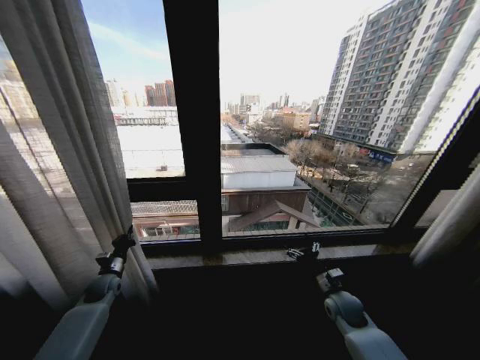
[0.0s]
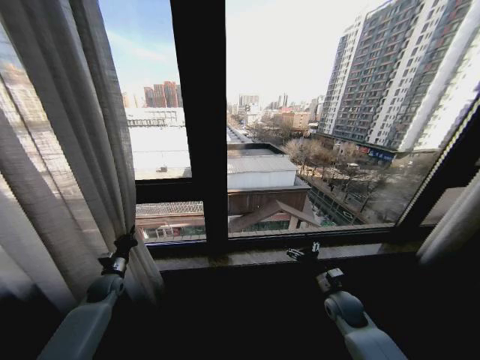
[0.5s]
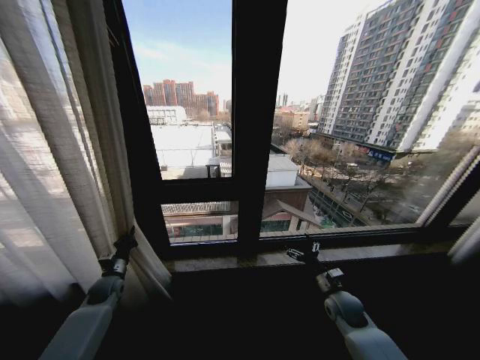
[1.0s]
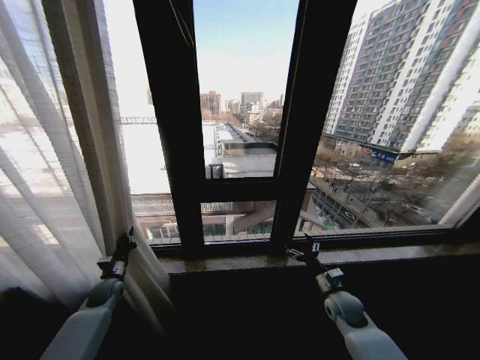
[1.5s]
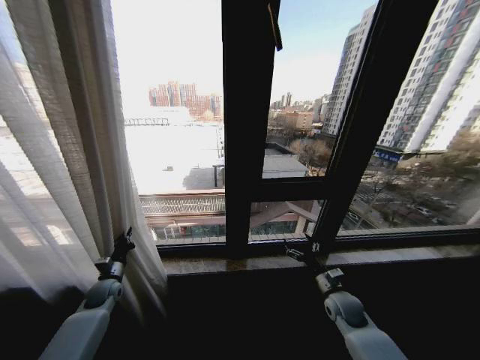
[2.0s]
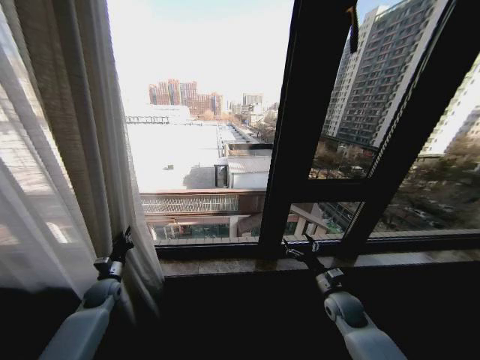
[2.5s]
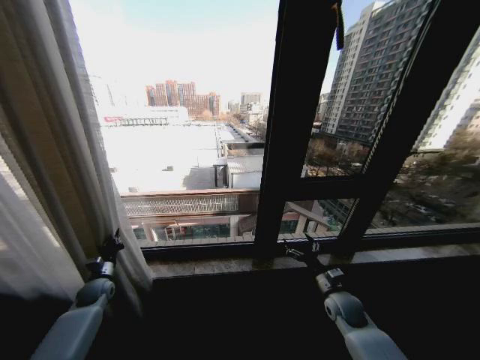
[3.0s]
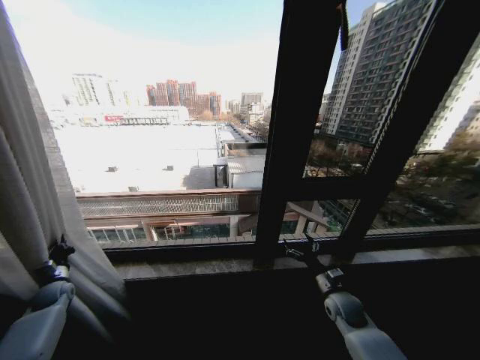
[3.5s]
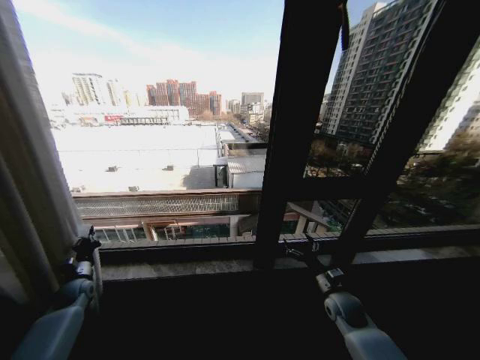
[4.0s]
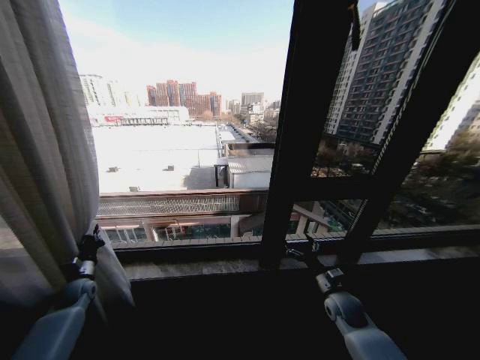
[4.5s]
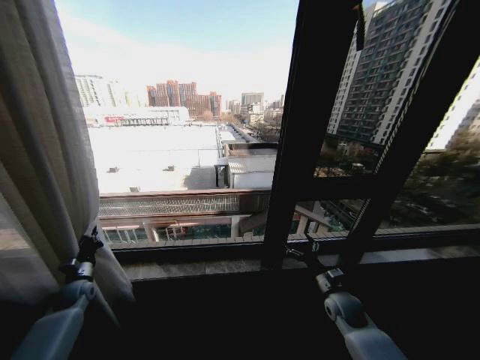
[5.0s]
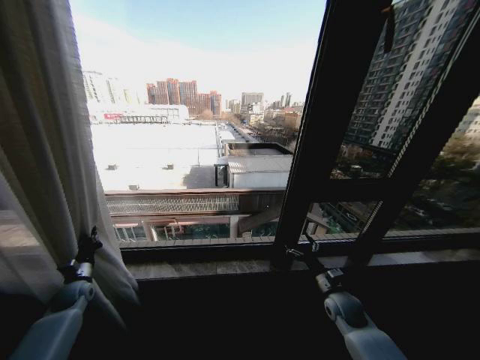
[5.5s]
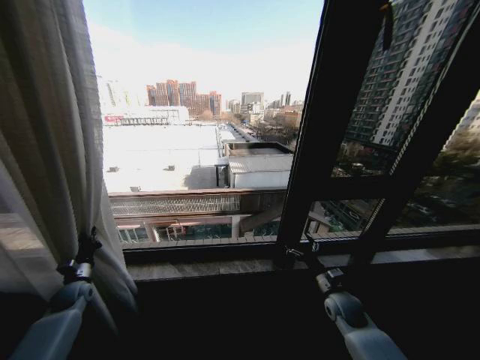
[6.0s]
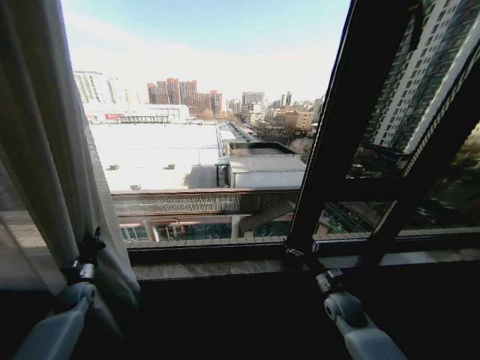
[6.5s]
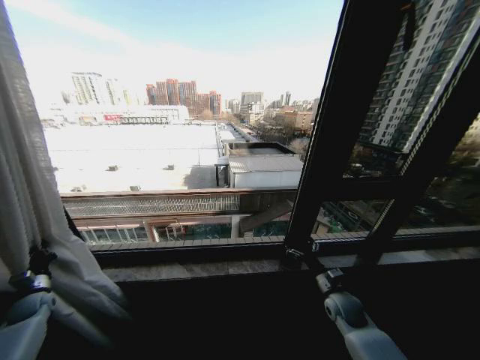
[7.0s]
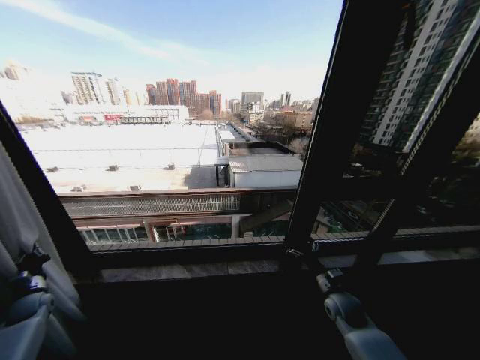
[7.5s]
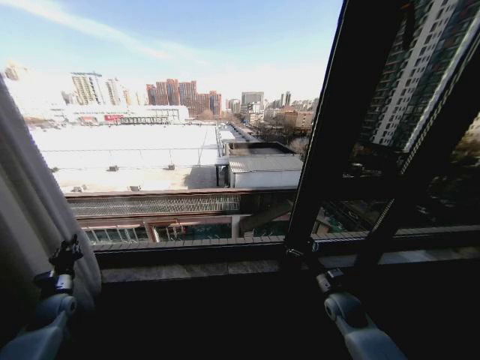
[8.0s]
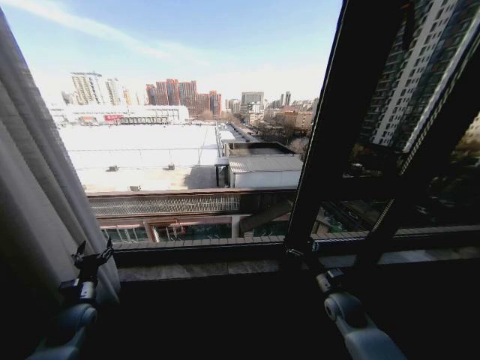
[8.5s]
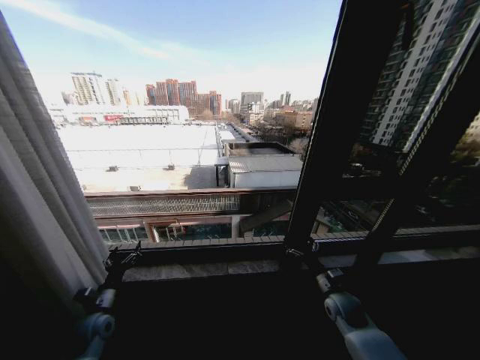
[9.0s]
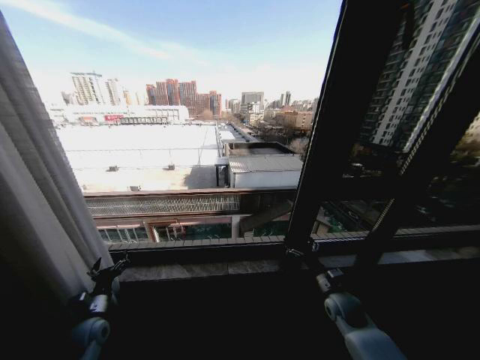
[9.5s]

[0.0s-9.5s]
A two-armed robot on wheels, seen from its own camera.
Task of the whole recording: Open the curtains by pulling them apart, changing their state from closed to fully open.
2.0s to 4.0s: The left gripper is displaced to the left by roughly 10 cm.
5.5s to 7.5s: The left gripper shifts about 10 cm to the left.
7.5s to 9.5s: The left gripper heads to the right, covering some 20 cm, and opens.

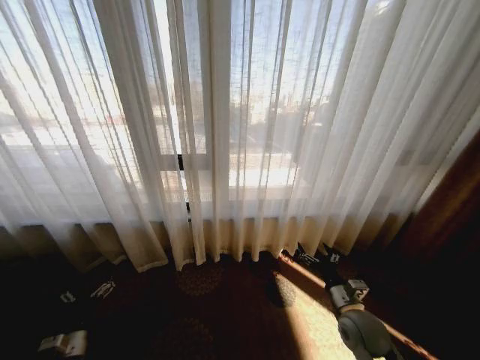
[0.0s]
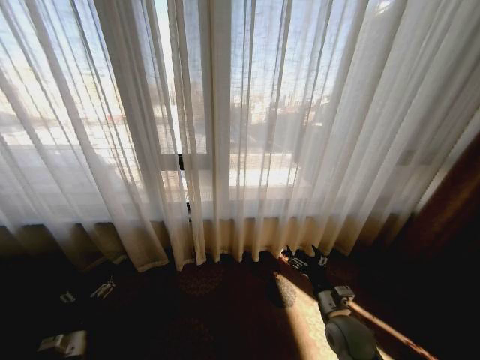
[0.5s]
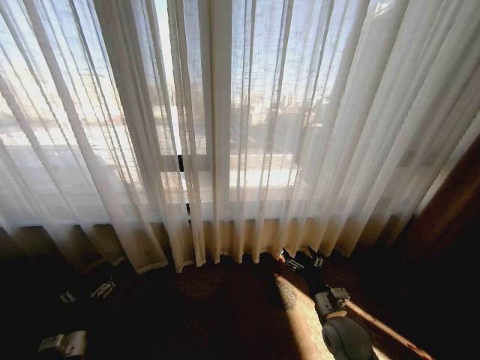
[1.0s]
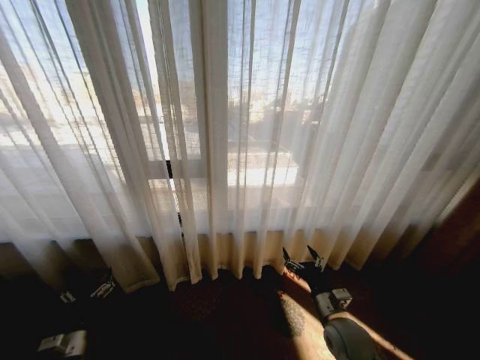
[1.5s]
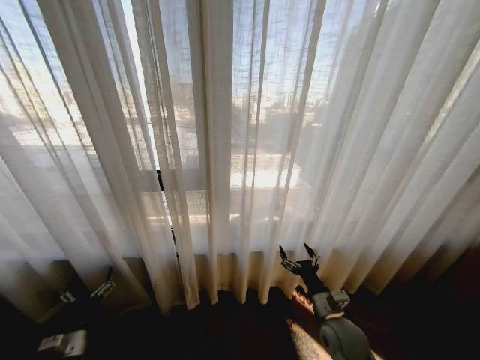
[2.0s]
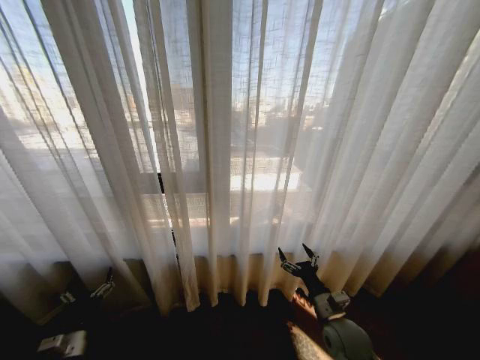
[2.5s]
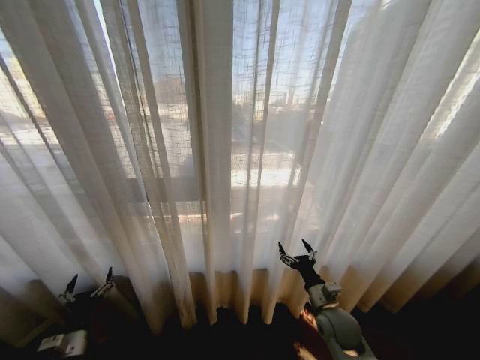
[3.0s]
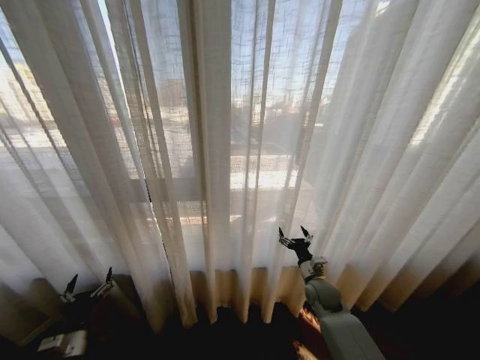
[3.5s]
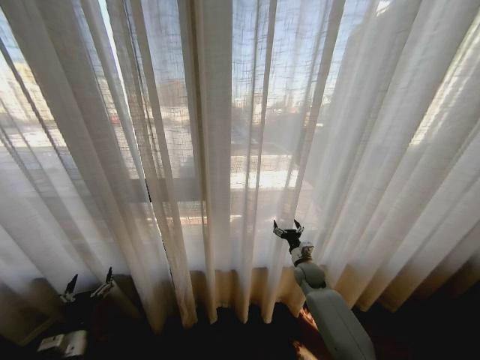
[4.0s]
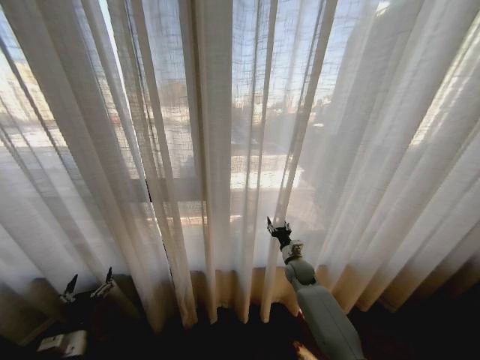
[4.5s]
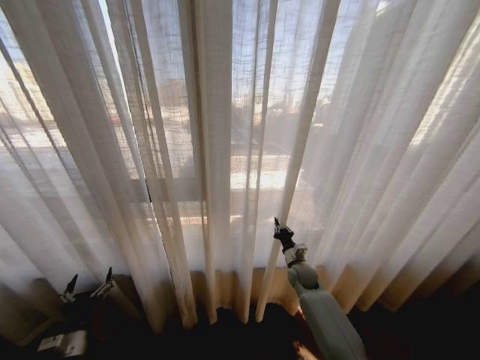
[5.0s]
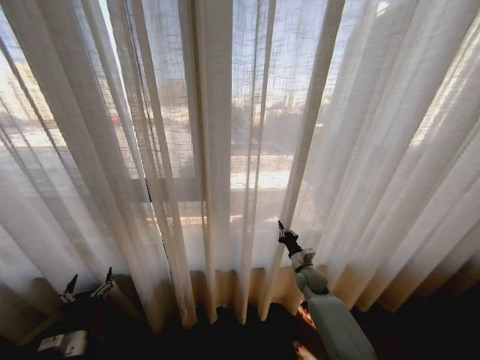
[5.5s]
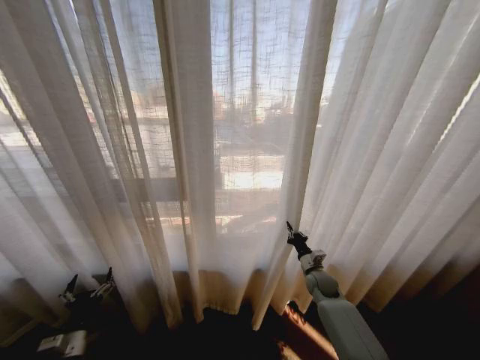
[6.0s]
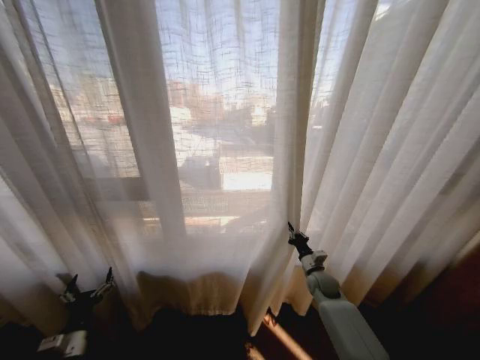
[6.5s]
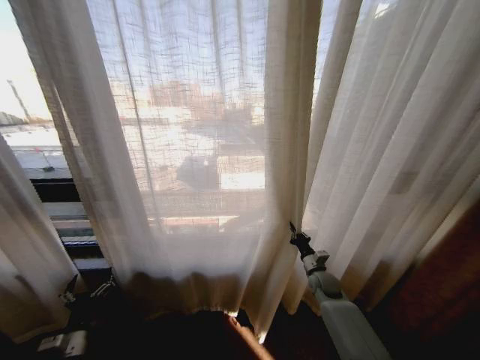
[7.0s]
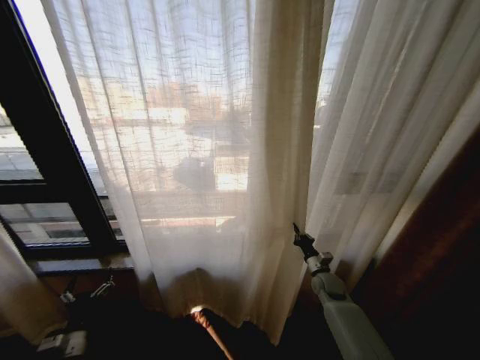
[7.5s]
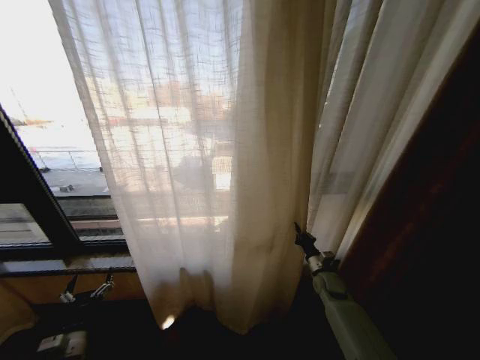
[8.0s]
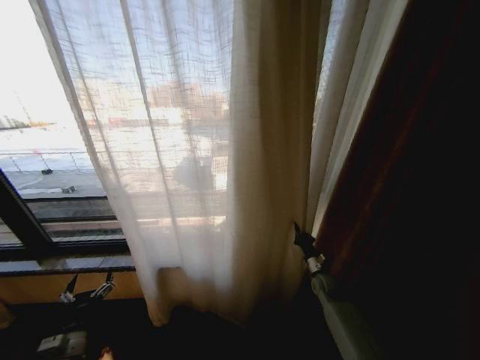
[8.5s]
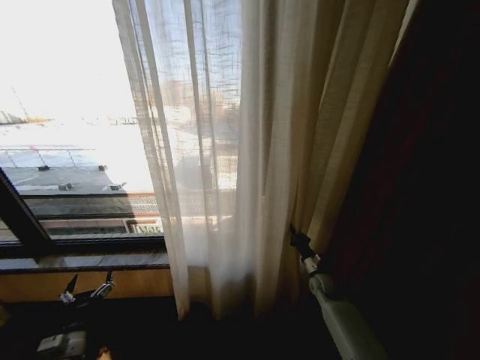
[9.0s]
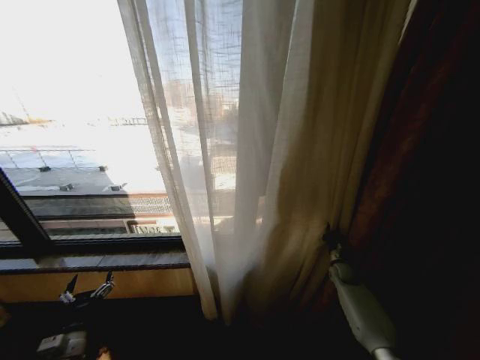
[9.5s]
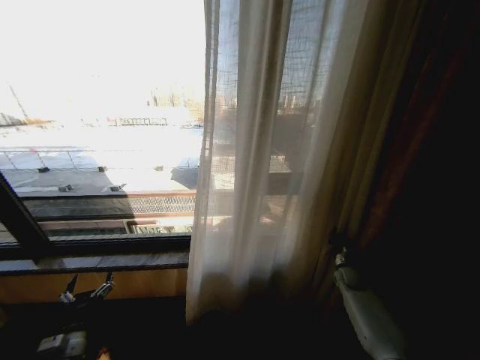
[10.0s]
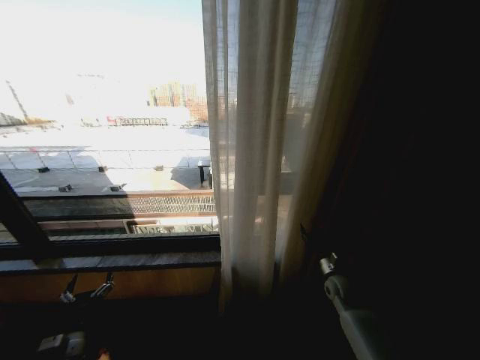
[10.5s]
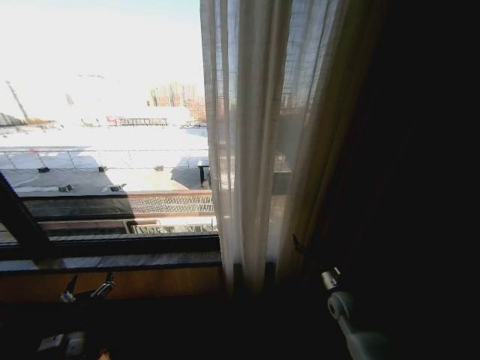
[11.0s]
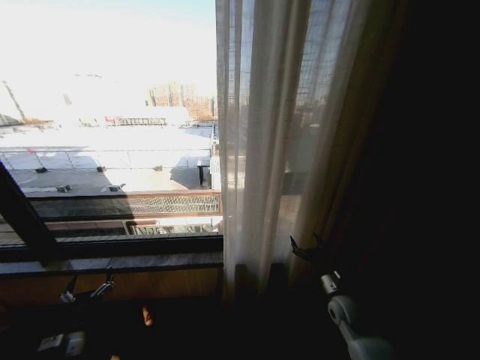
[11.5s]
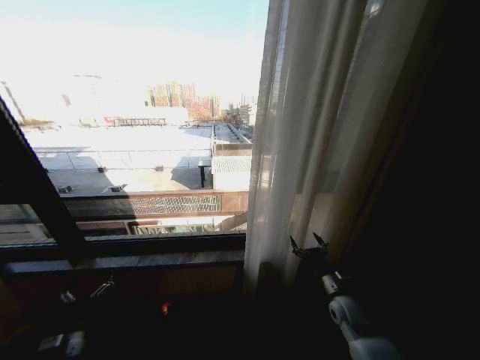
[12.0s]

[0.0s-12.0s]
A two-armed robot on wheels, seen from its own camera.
Task of the whole recording: Open the curtains by pulling them apart, changing their state from closed to fully open.
2.0s to 4.0s: The right gripper goes roughly 20 cm forward.
4.0s to 6.0s: The right gripper closes its fingers.
8.0s to 10.0s: The right gripper goes approximately 10 cm to the right.
10.0s to 12.0s: The right gripper travels backward and to the left by about 15 cm, and opens.

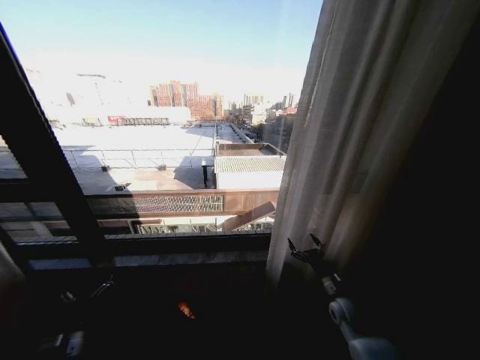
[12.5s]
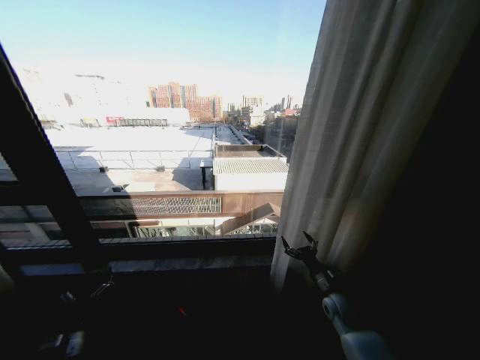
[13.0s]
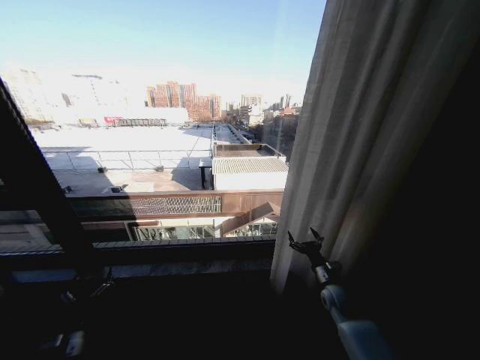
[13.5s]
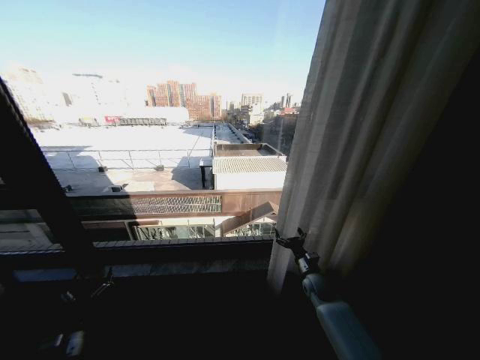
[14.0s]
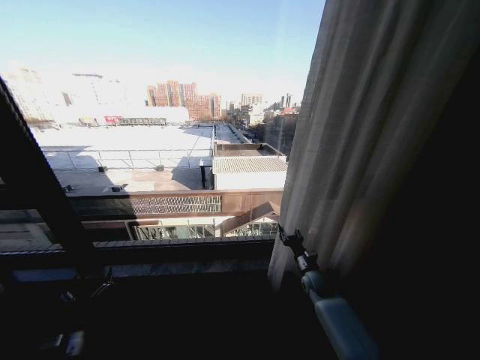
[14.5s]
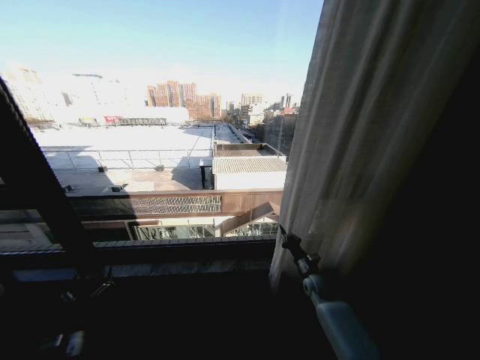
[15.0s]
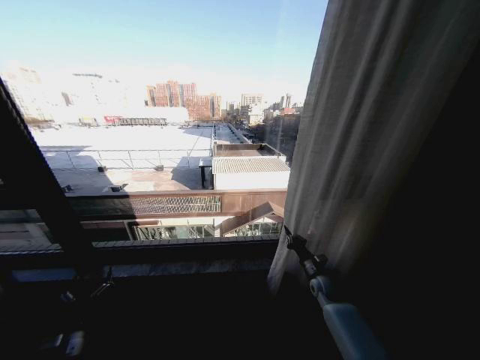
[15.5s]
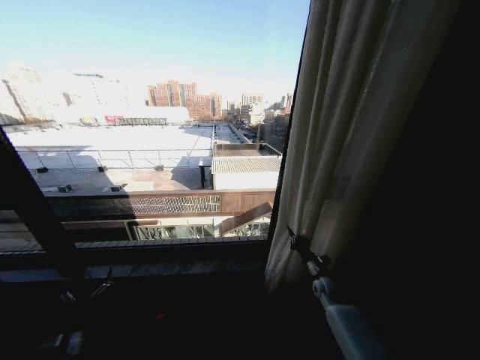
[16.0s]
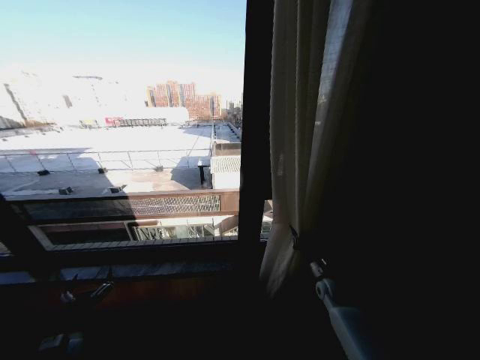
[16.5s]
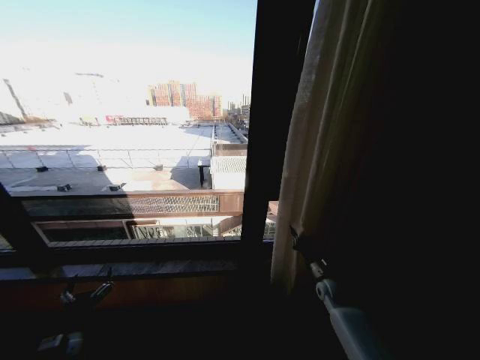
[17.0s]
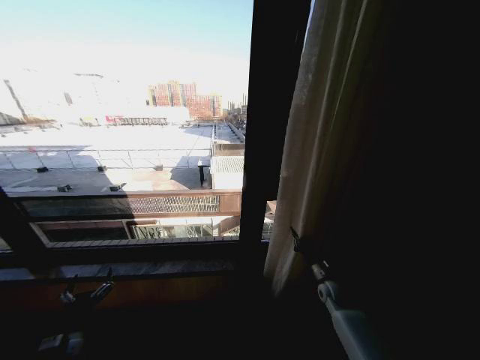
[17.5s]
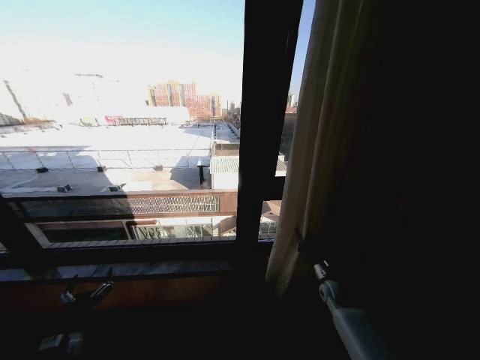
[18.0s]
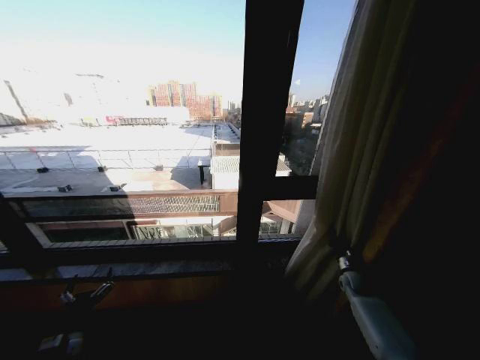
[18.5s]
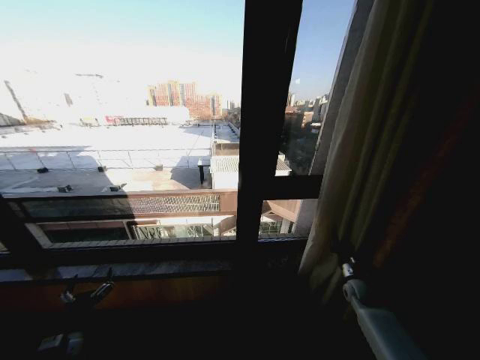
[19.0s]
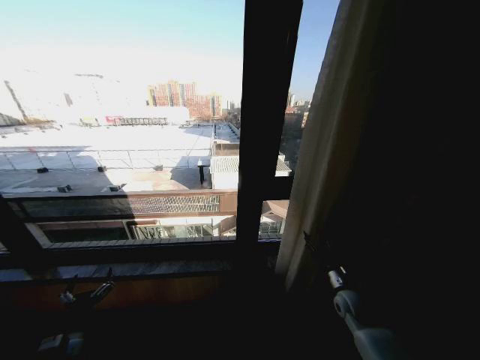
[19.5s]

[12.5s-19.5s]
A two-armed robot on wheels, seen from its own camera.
Task of the whole recording: Open the curtains by pulling them apart, changing their state from closed to fully open.
12.5s to 14.5s: The right gripper is displaced forward by about 10 cm, and closes its fingers.
14.5s to 16.0s: The right gripper closes up.
16.0s to 17.5s: There are only small adjustments of the grippers.
17.5s to 19.5s: The right gripper goes about 5 cm backward, travels to the right and back again, roughly 10 cm each way, and opens up.
